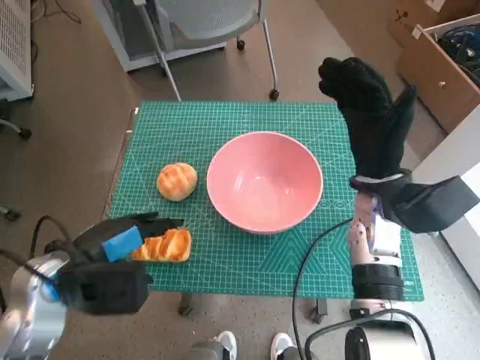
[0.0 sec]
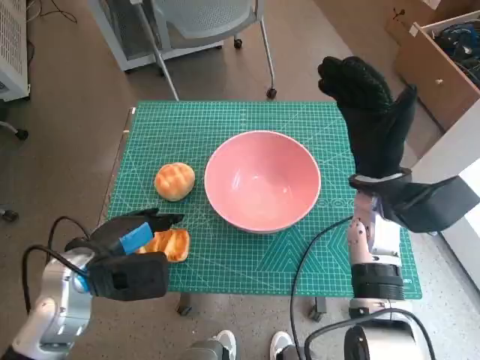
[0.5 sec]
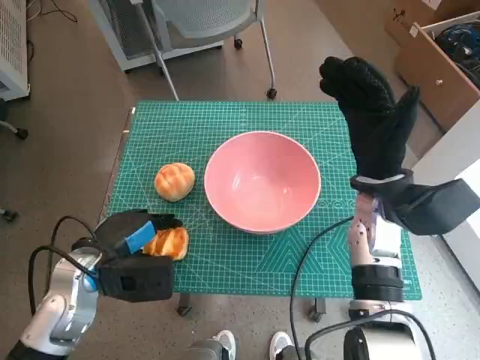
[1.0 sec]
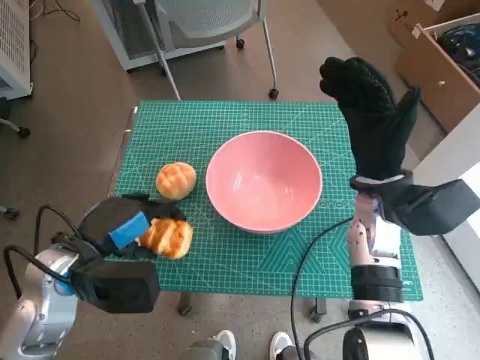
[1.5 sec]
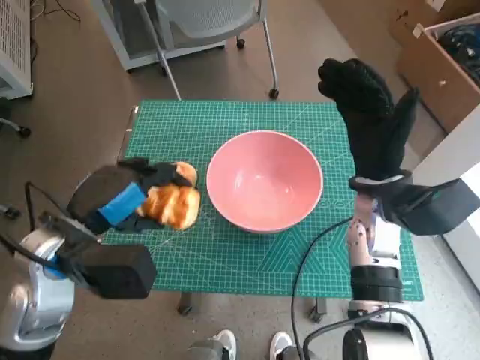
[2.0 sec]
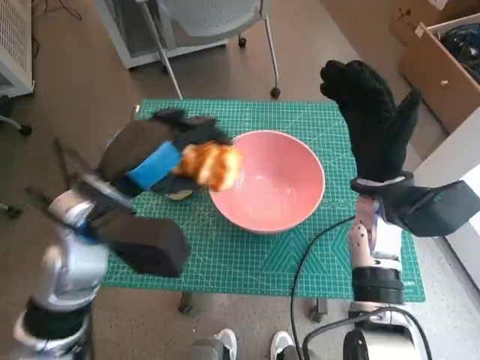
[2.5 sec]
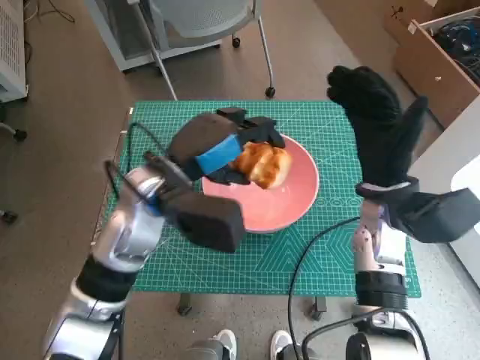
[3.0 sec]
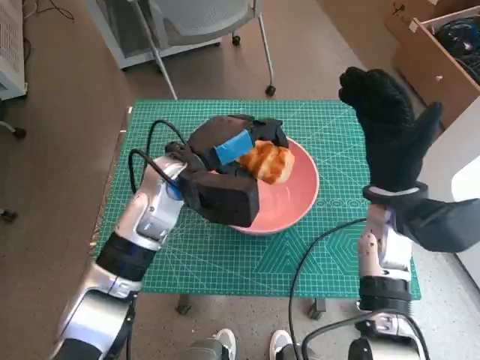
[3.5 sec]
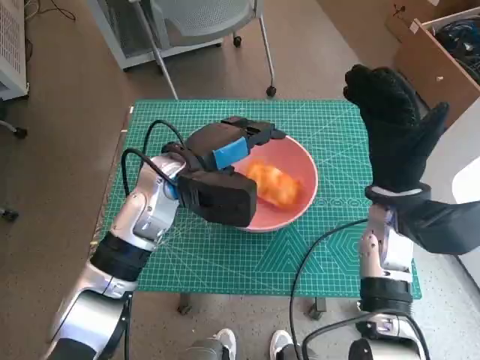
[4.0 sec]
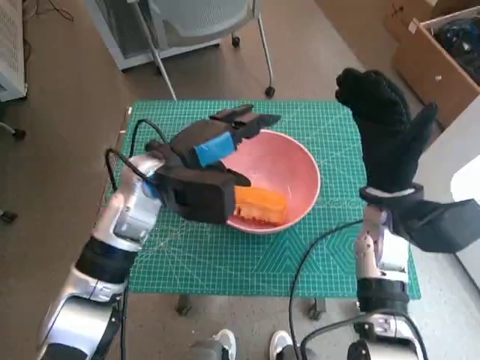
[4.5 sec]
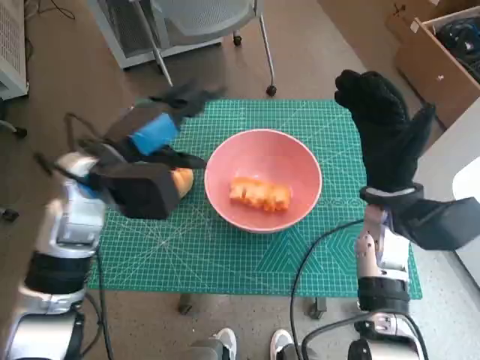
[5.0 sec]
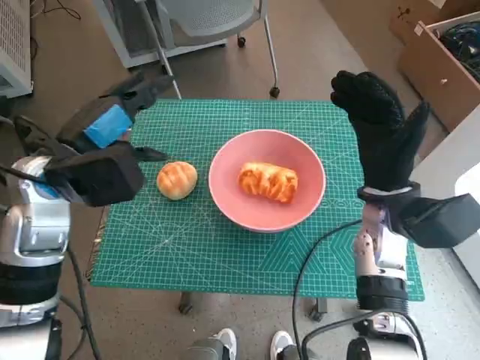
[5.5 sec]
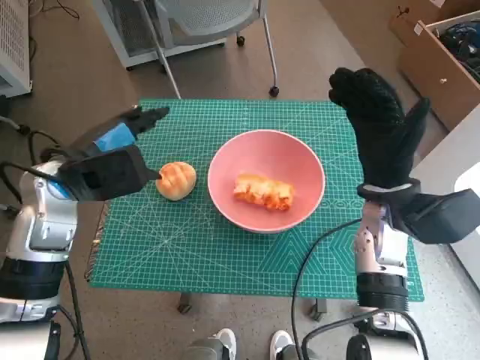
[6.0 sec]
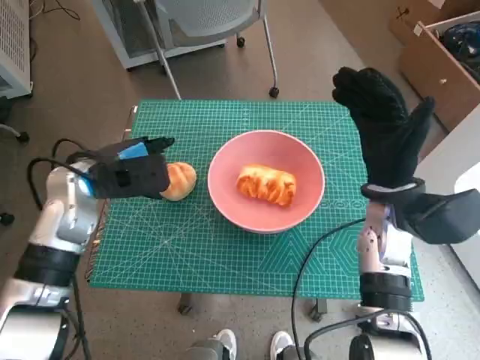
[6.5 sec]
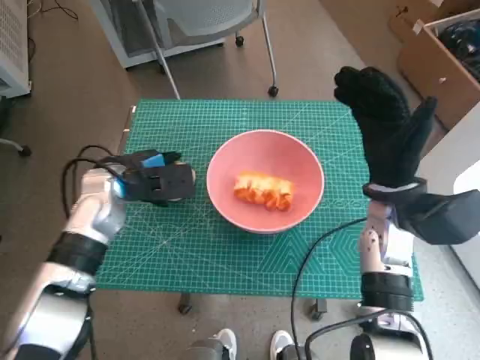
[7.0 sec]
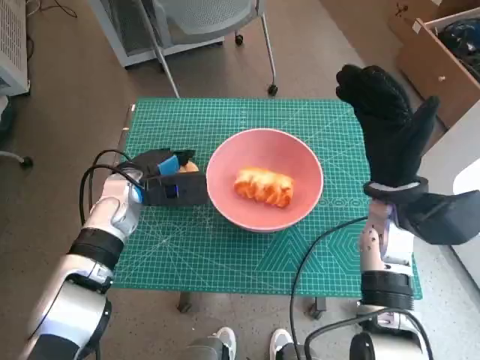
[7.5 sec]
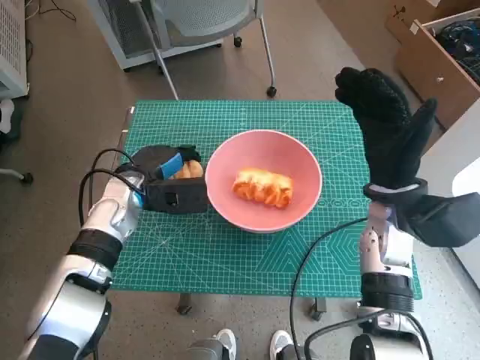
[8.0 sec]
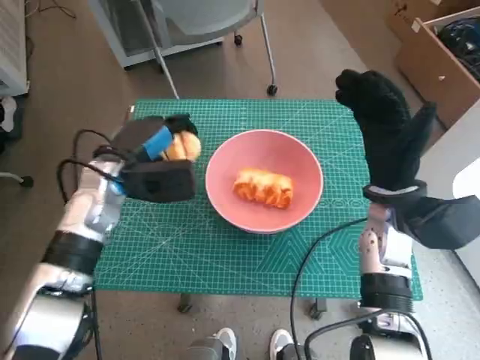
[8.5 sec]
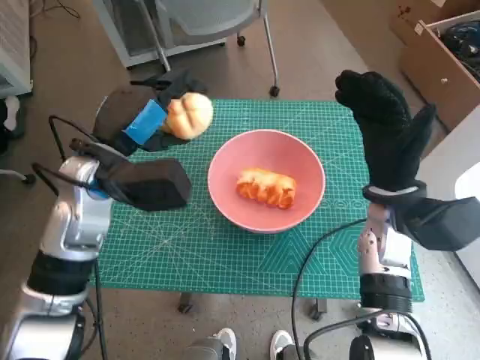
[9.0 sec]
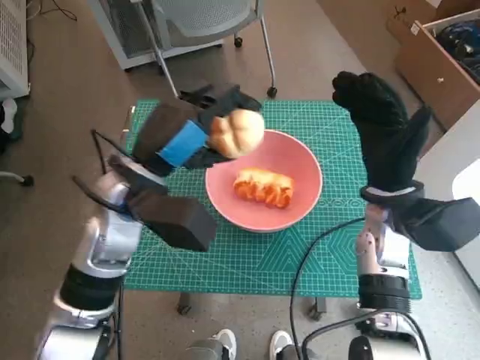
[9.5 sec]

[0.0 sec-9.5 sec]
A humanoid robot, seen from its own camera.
Step, 1.5 sec to 4.0 sec: Place the long bread in pink bowl with left hand.
Step, 4.5 sec to 8.0 sec: Grasp the round bread with left hand.
0.0 sec to 2.0 sec: The left hand reaches approximately 5 cm downward, then returns.
2.0 sec to 4.0 sec: The left hand goes about 15 cm forward and to the right.
4.0 sec to 5.5 sec: The left hand heads to the left and upward, covering some 10 cm.
5.5 sec to 7.5 sec: The left hand travels downward and forward by approximately 15 cm.
7.5 sec to 9.5 sec: The left hand moves upward and backward, about 10 cm.

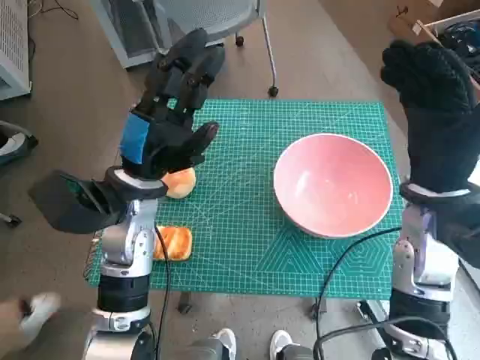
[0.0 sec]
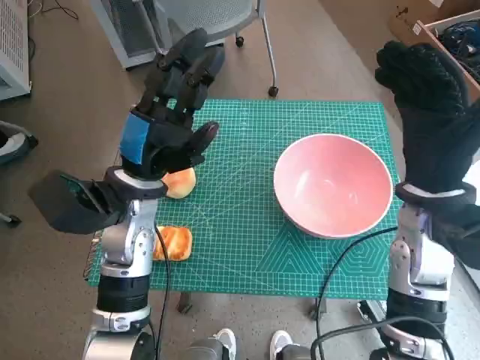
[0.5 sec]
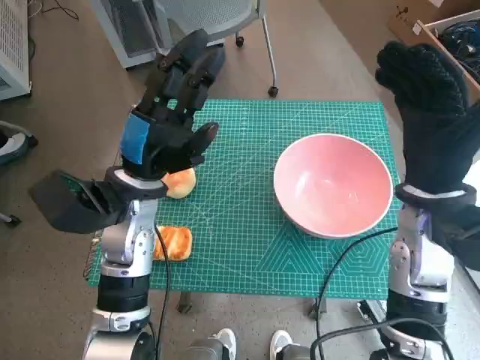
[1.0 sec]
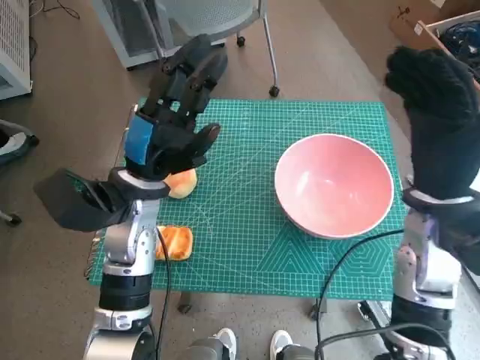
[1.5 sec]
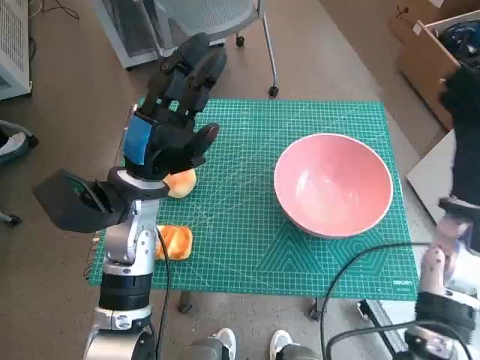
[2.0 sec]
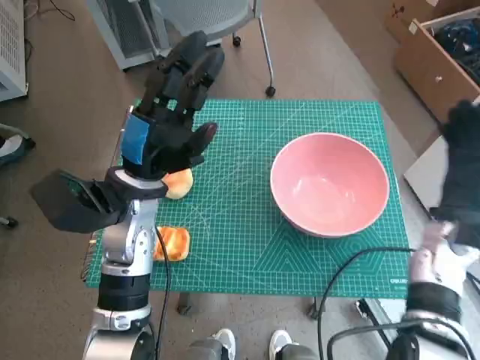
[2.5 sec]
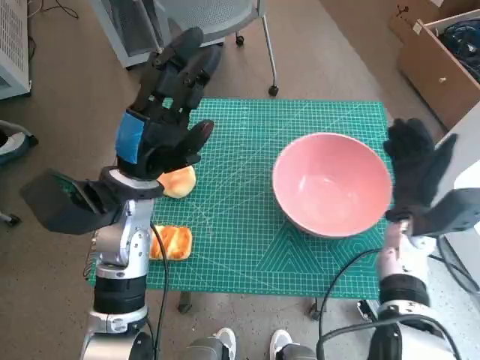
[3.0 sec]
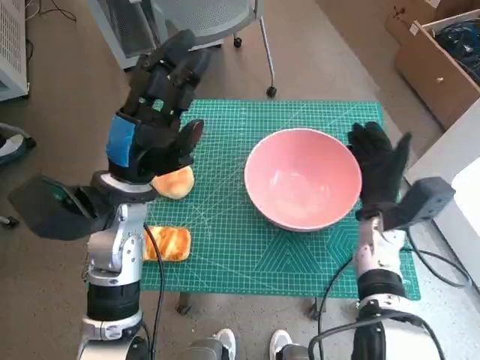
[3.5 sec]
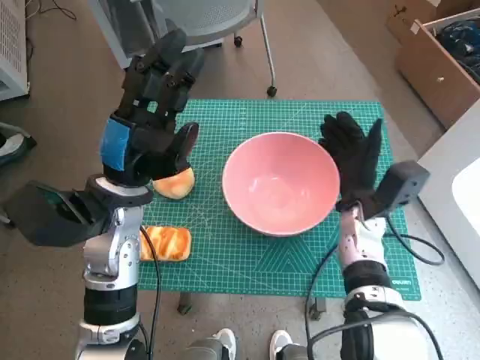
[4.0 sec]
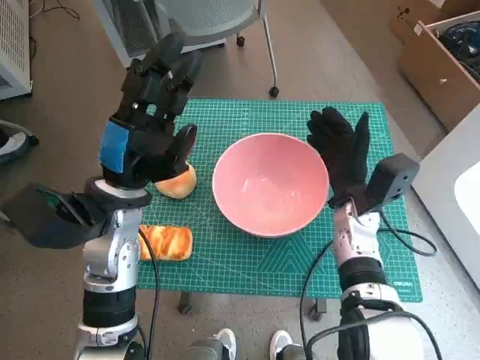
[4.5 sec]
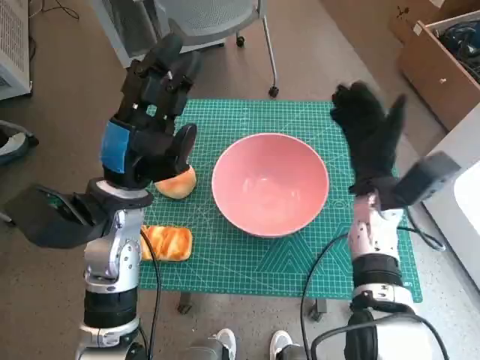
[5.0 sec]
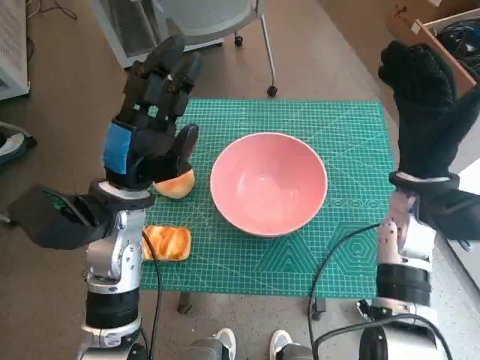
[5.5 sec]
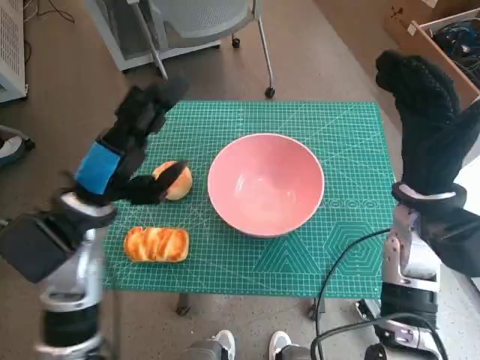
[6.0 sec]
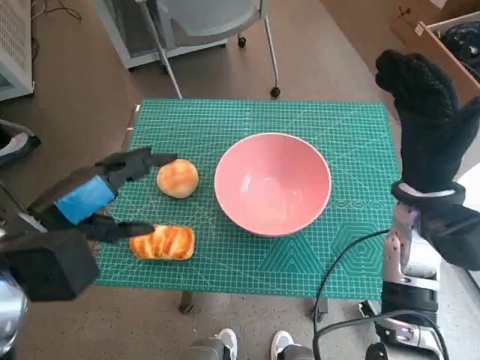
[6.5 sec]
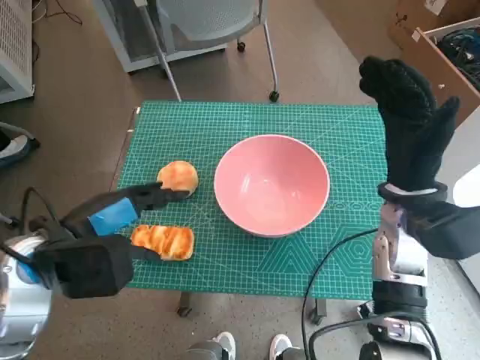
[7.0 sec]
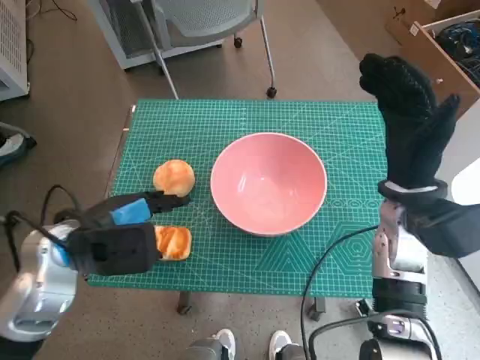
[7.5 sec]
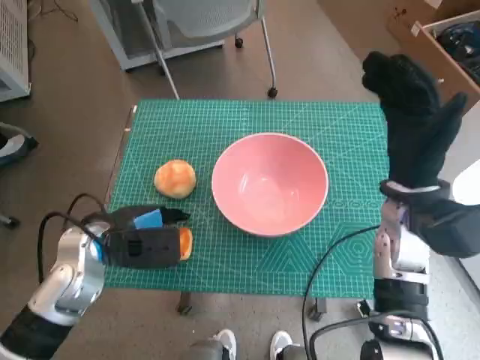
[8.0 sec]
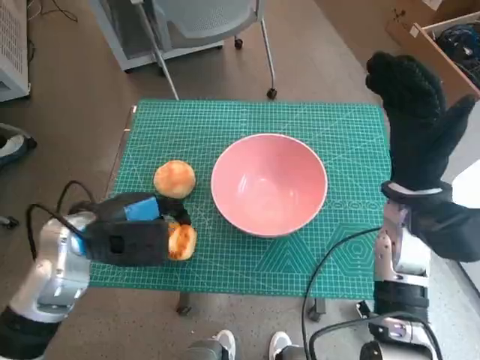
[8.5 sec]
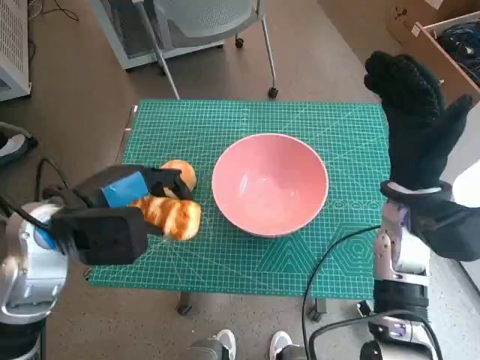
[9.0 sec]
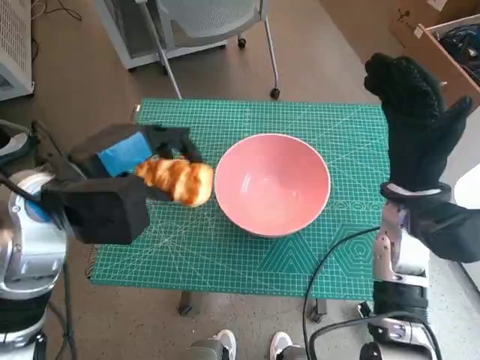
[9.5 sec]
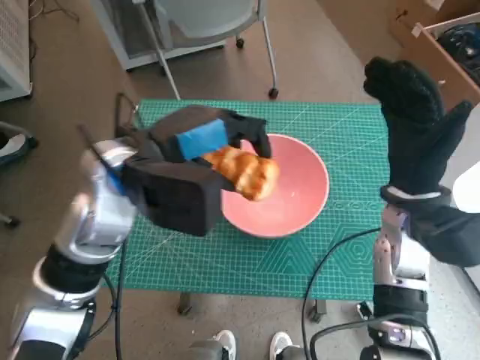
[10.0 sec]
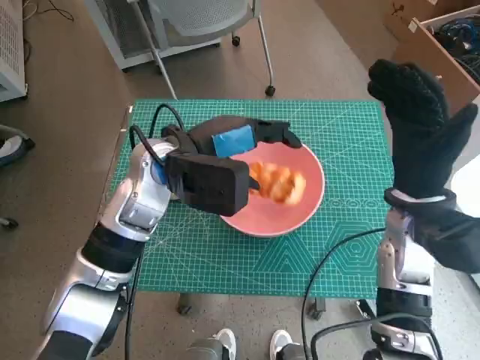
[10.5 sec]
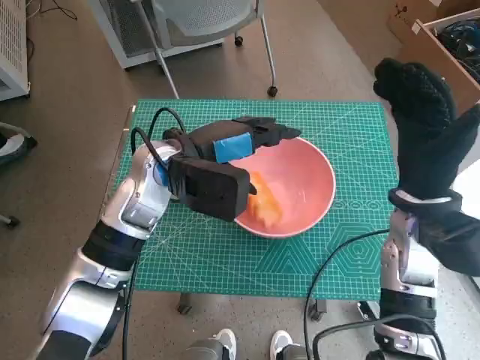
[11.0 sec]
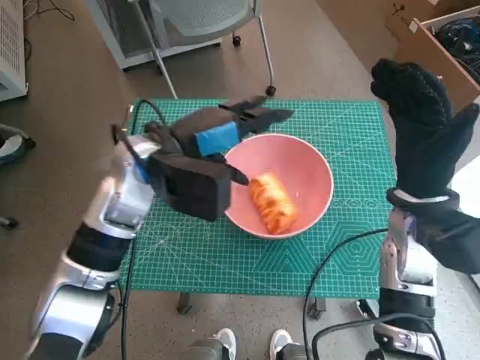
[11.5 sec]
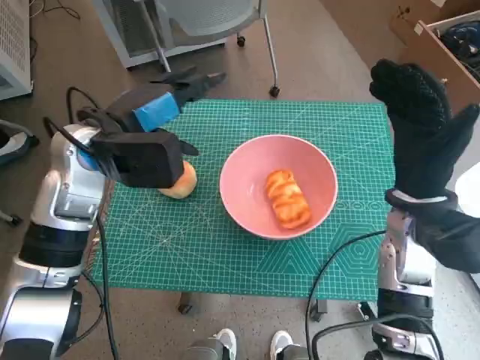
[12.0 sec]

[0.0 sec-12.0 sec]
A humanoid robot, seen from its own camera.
Step, 0.0 sec to 4.5 sec: Move the pink bowl to the center of table with right hand.
Step, 5.0 sec to 8.0 sec: Grasp the long bread with left hand.
Step, 8.5 sec to 10.5 sec: Place the long bread in pink bowl with left hand.
2.0 sec to 4.0 sec: The right hand travels to the left and downward by approximately 15 cm.
4.0 sec to 6.0 sec: The right hand is displaced upward by about 10 cm.
6.0 sec to 8.0 sec: The left hand moves downward, approximately 5 cm.
8.0 sec to 10.0 sec: The left hand travels upward and to the right by roughly 15 cm.
10.0 sec to 12.0 sec: The left hand shifts by some 5 cm.

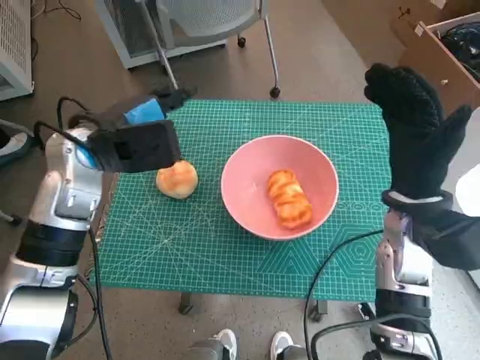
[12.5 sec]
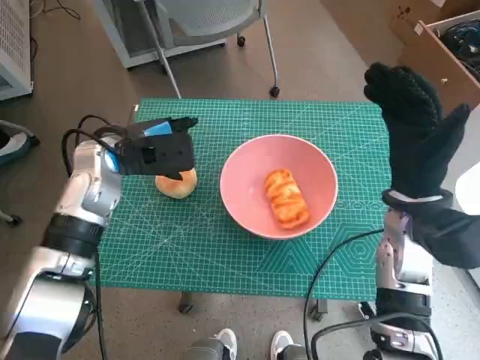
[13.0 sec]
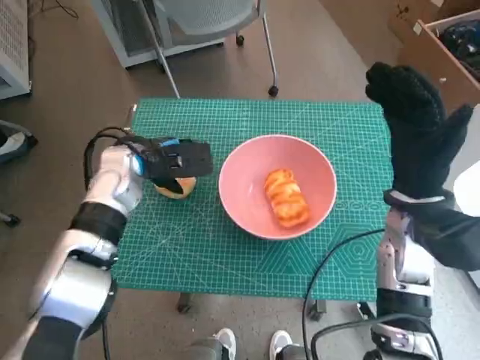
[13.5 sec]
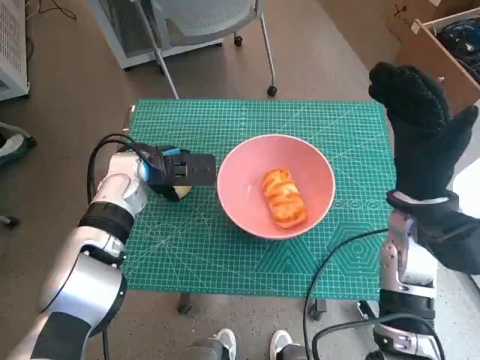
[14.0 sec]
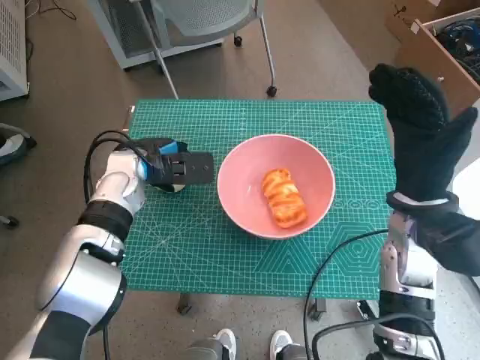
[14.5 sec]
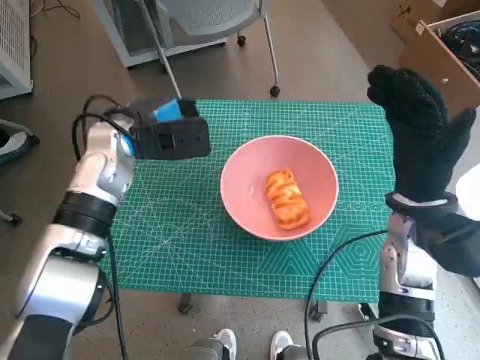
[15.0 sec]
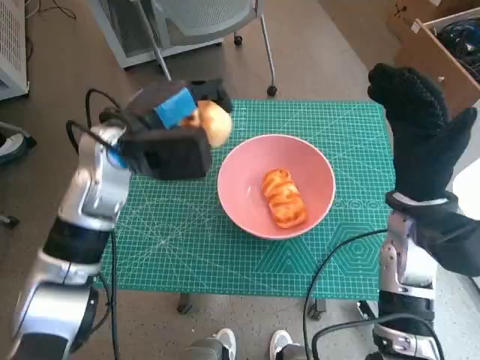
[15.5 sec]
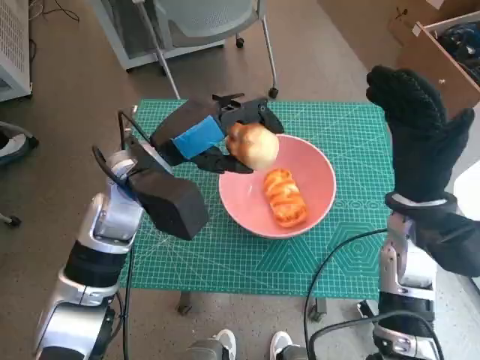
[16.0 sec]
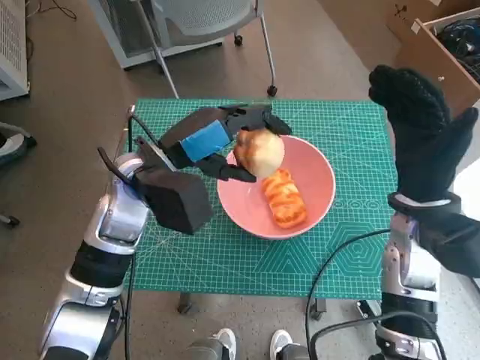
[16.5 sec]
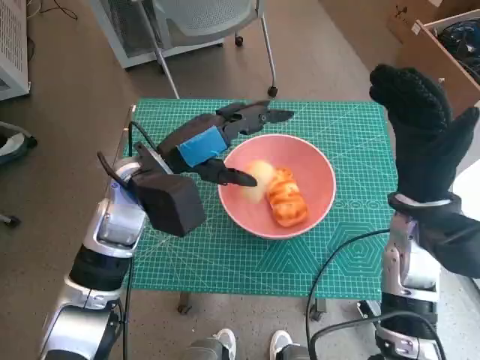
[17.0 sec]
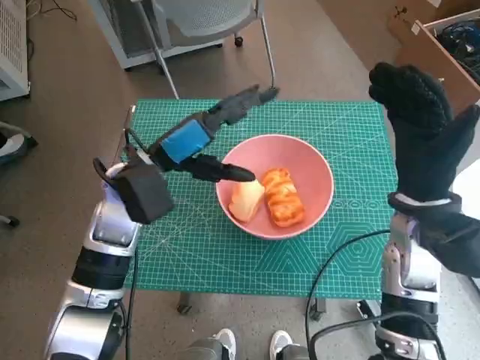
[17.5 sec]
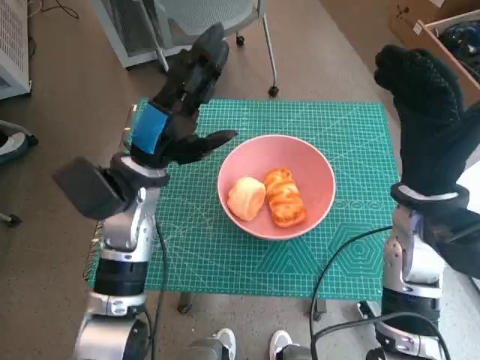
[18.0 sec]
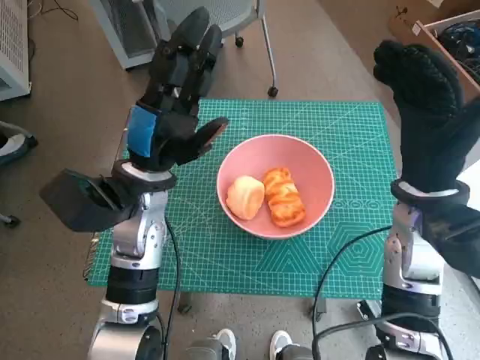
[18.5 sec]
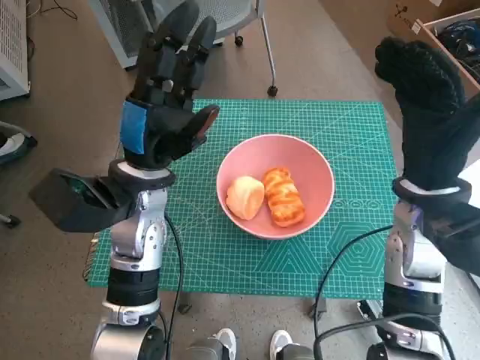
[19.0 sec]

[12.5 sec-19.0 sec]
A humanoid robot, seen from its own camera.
Step, 14.5 sec to 17.0 sec: Place the round bread in pink bowl with left hand.
12.5 sec to 14.5 sec: The left hand shifts approximately 10 cm downward.
14.5 sec to 17.0 sec: The left hand travels upward and backward by some 10 cm.
